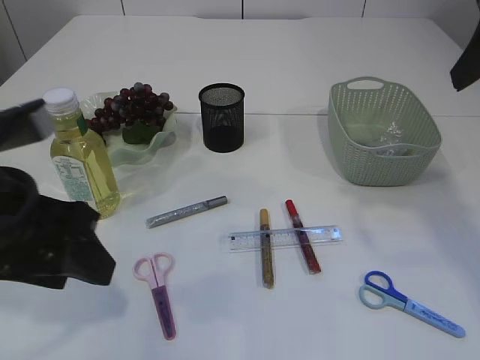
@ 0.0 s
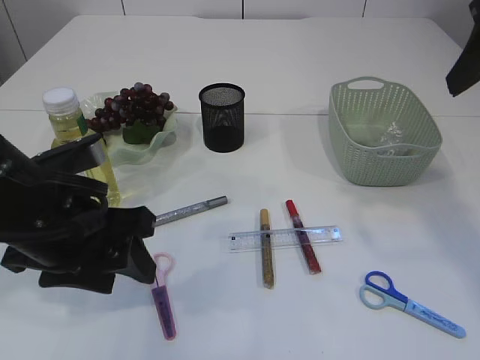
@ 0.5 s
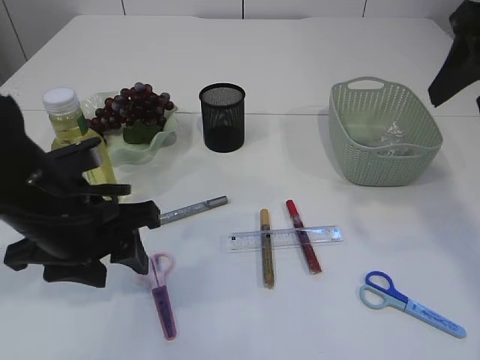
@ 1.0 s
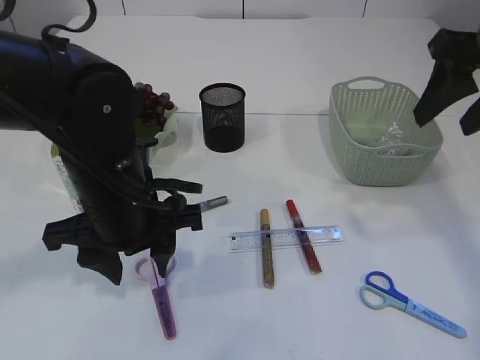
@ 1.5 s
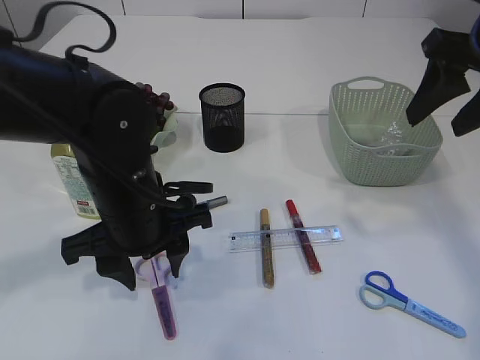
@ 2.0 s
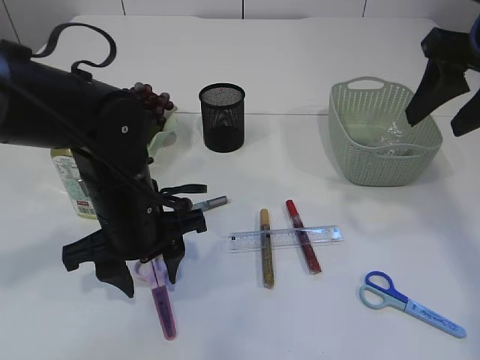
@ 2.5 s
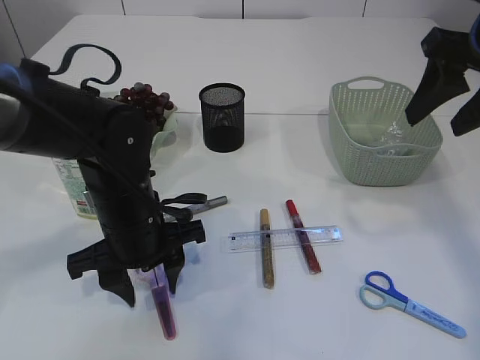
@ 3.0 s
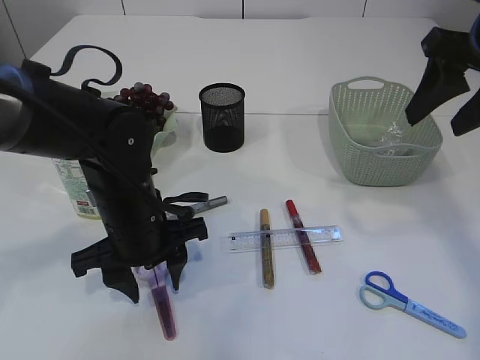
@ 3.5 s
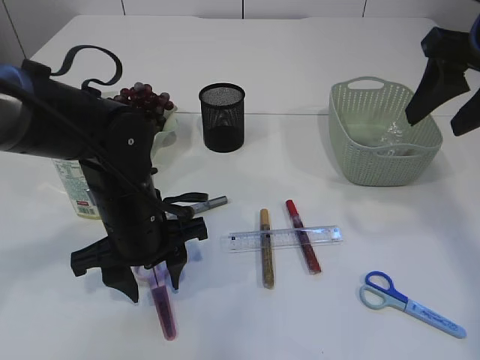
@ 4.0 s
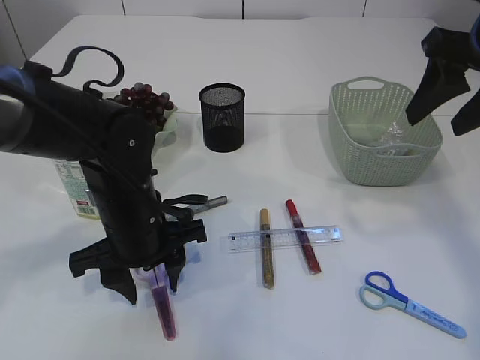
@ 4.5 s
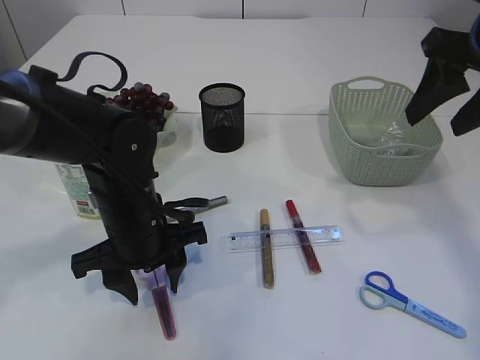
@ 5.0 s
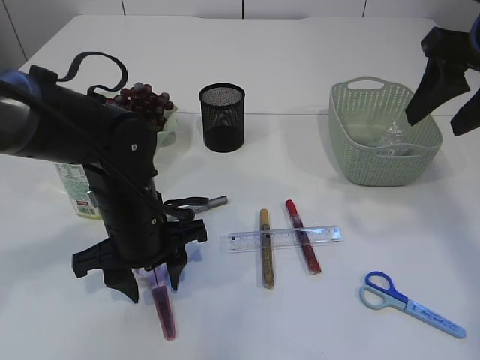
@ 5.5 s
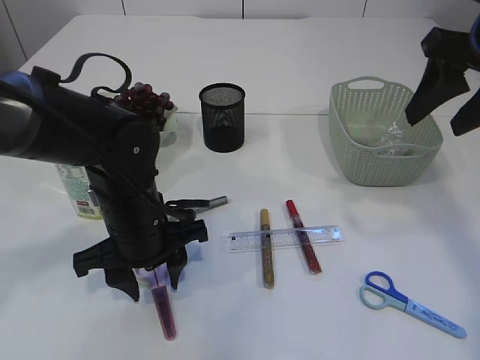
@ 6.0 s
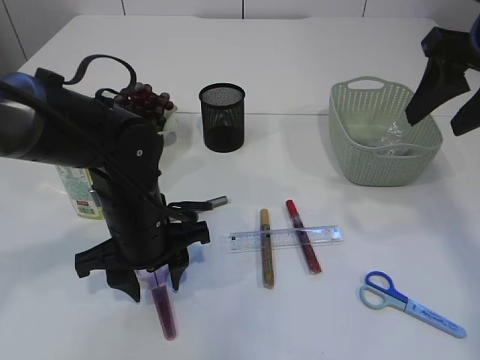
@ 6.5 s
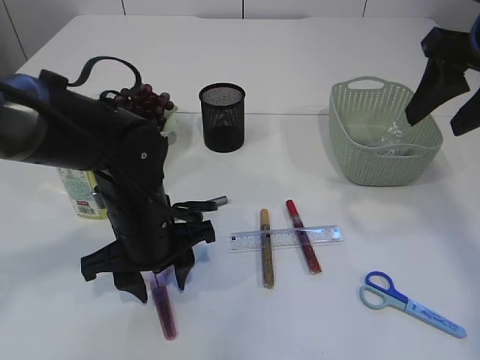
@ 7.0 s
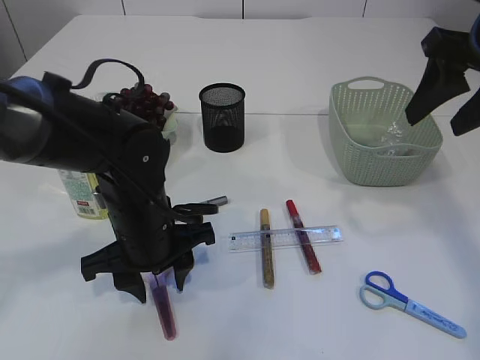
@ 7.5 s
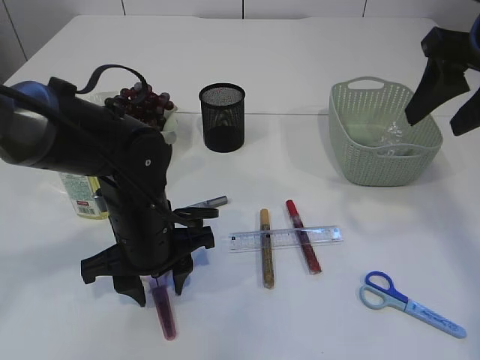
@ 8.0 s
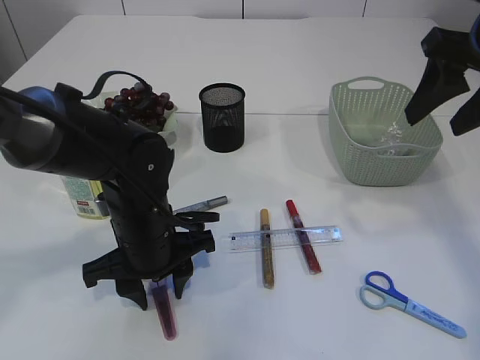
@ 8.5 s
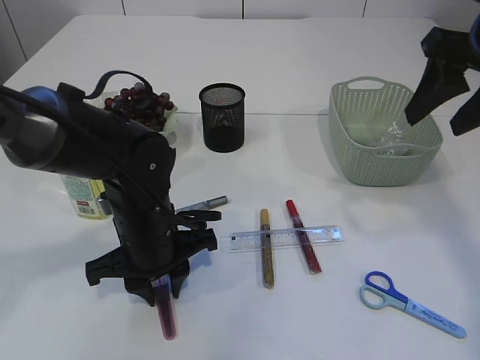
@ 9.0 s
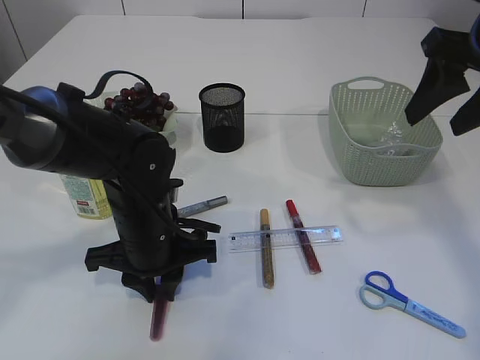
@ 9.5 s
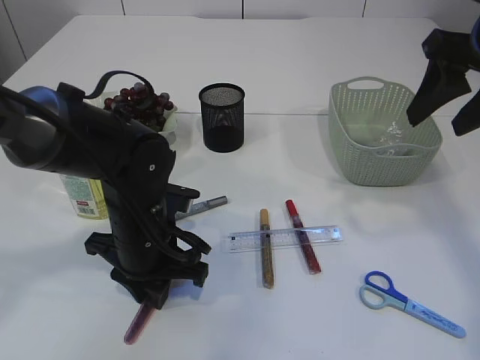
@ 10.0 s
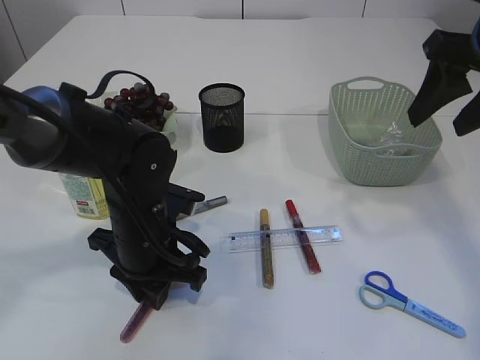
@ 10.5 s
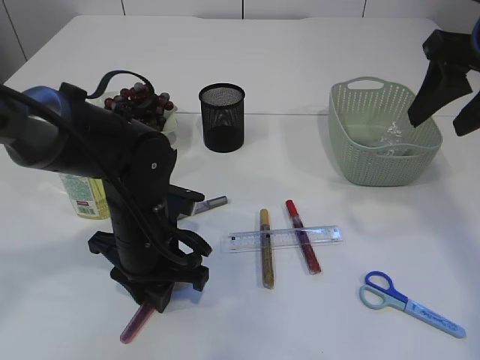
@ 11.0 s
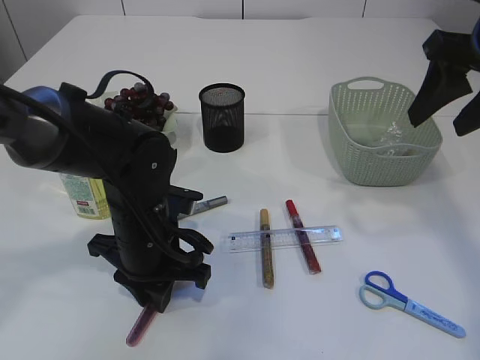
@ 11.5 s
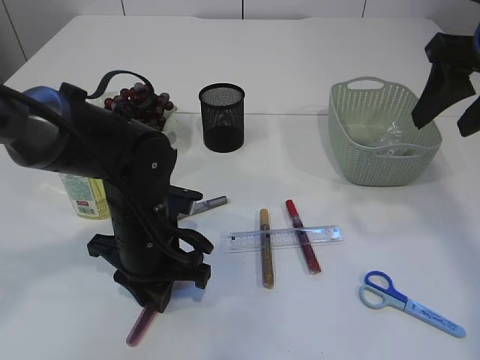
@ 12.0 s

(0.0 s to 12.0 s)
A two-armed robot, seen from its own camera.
0.0 s - 2.0 s: The left gripper heads downward, to the right and forward, covering about 15 cm, while the right gripper moves downward, roughly 5 cm.
2.0 s - 4.0 s: There are only small adjustments of the grippers.
4.0 s - 6.0 s: Both grippers stay about where they are.
6.0 s - 8.0 s: Both grippers stay about where they are.
10.0 s - 12.0 s: The grippers move only a little.

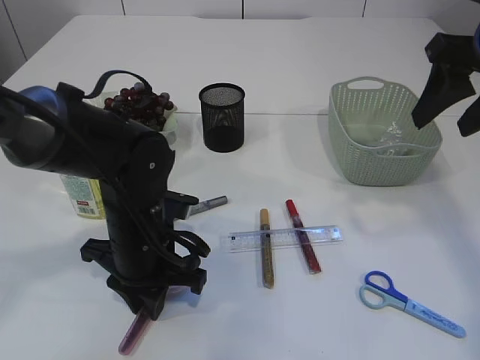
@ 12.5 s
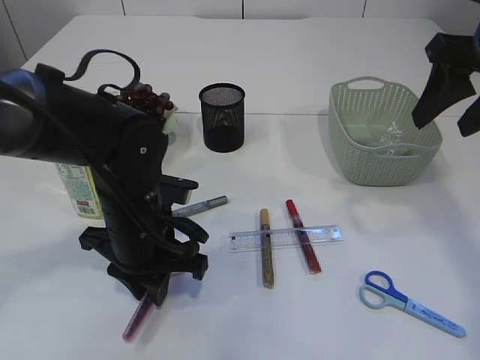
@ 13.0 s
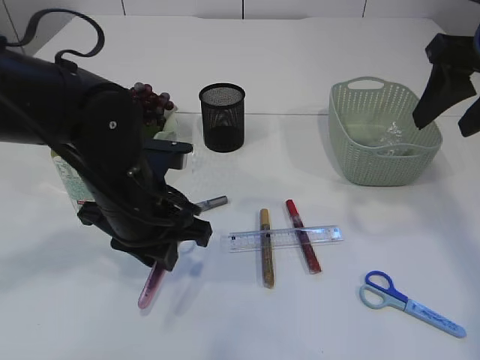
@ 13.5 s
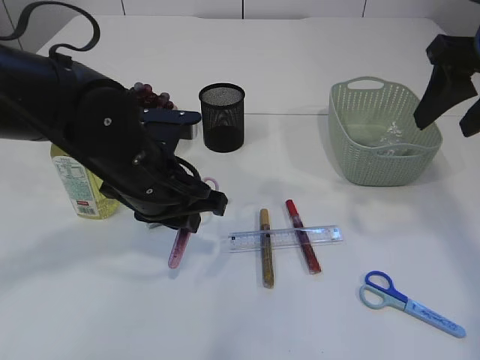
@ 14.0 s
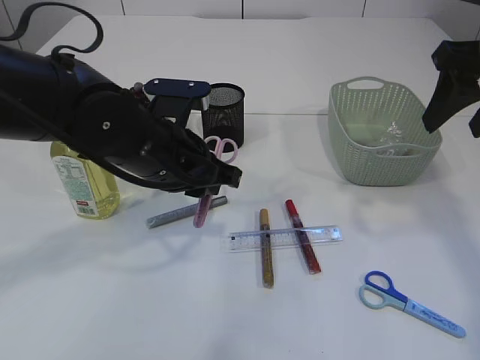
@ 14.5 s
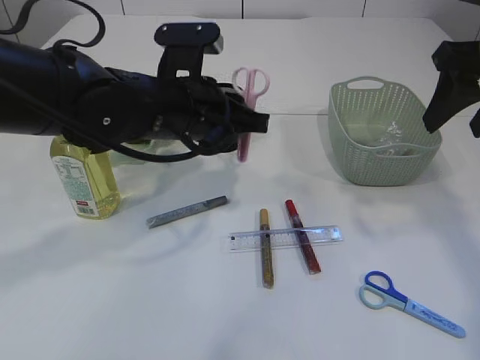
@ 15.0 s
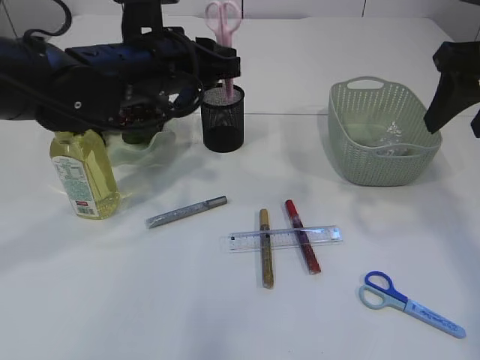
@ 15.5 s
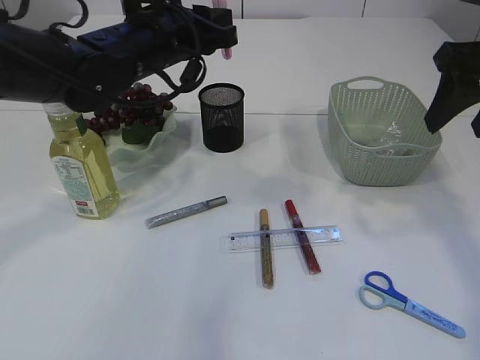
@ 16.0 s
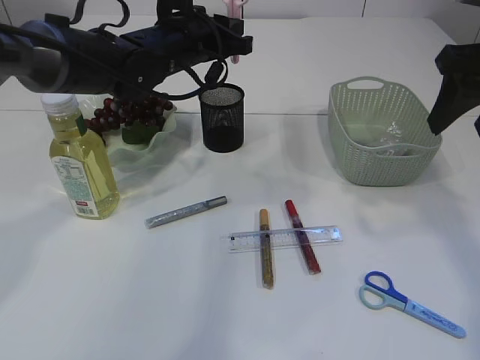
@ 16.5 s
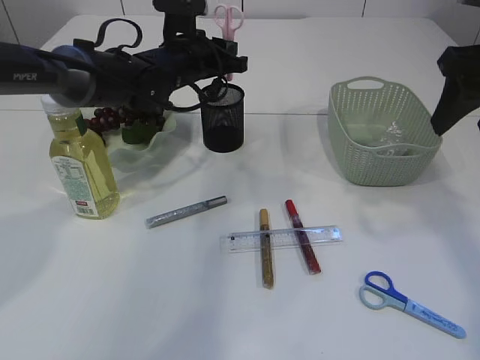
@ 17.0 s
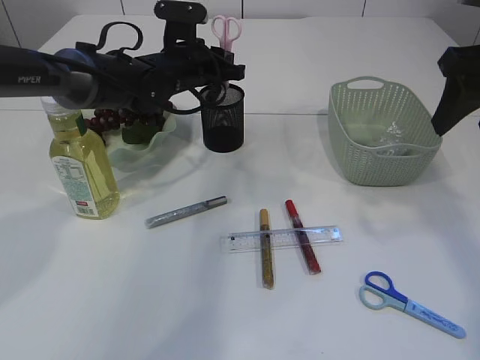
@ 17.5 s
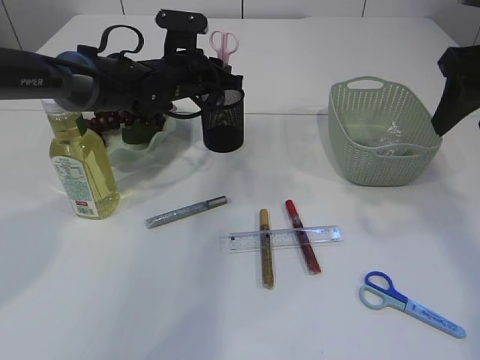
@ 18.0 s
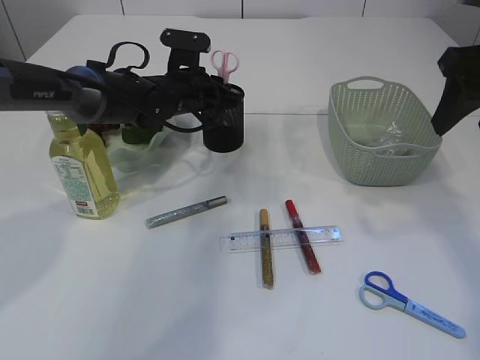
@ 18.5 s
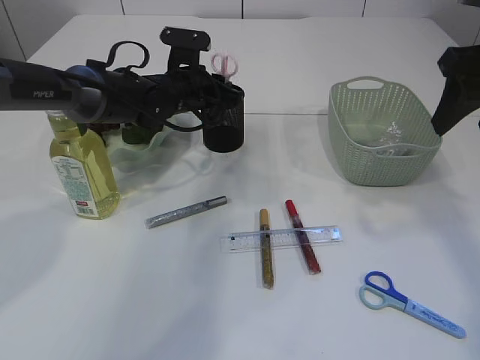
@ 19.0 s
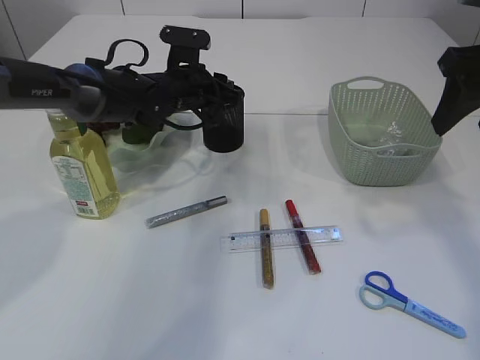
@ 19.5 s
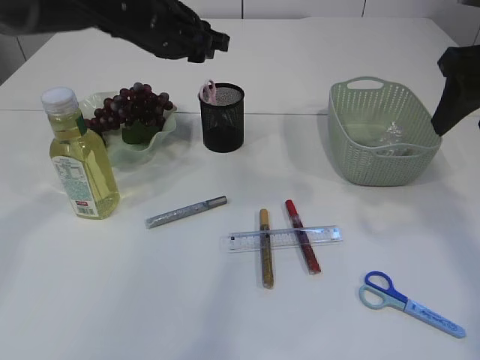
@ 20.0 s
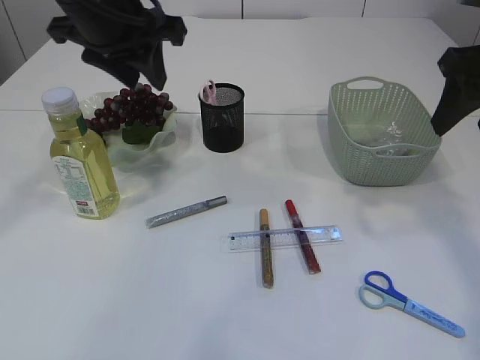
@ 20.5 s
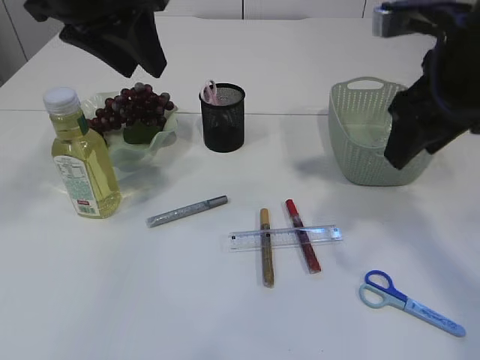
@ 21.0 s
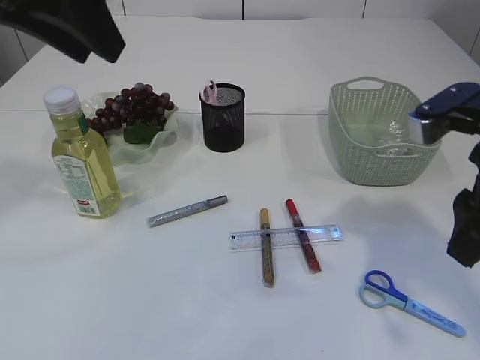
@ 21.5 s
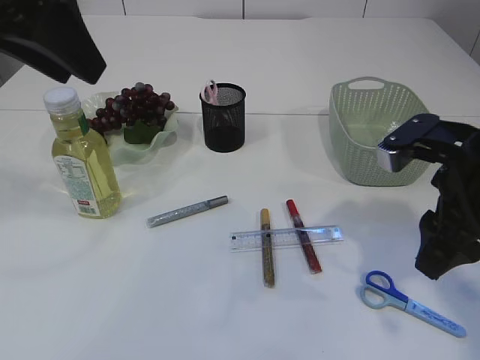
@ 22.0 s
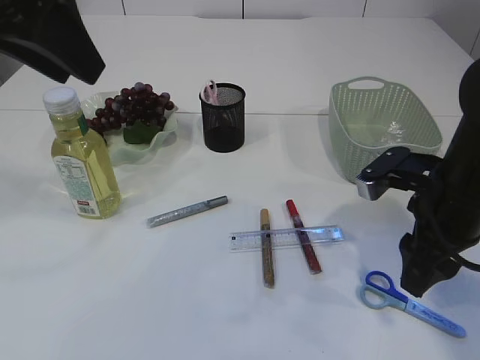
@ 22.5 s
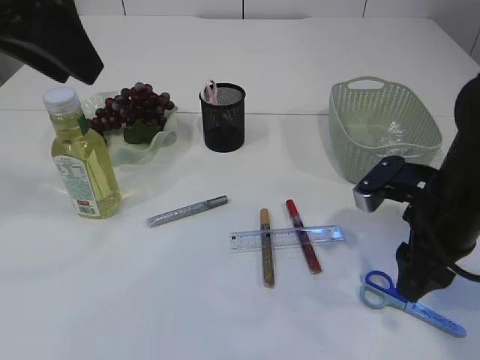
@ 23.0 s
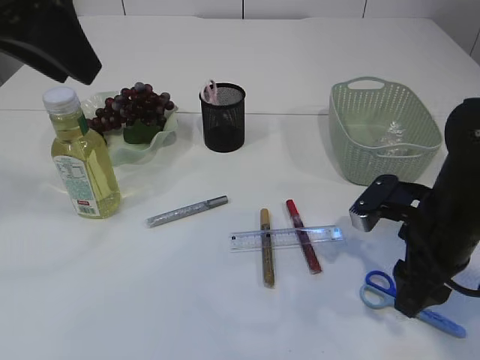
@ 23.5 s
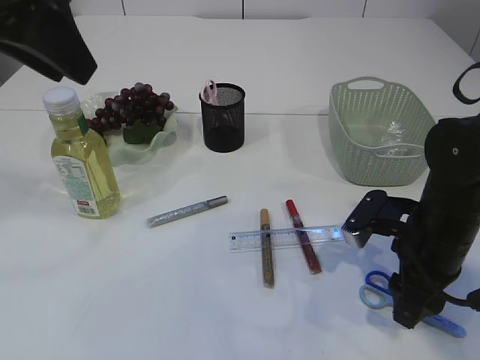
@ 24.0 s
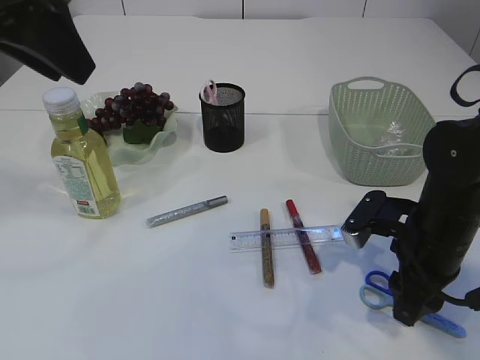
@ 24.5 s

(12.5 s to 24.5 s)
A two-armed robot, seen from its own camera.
Step, 14.0 s - 20.0 s: Place the pink scissors into the pen holder.
12.5 s - 14.5 s: The left gripper moves upward, roughly 10 cm.
14.5 s - 16.5 s: The left gripper moves forward, roughly 15 cm.
16.5 s - 18.5 s: The left gripper shifts about 10 cm downward.
18.5 s - 20.5 s: The left gripper moves upward and backward, about 20 cm.
20.5 s - 22.5 s: The left gripper travels backward and upward by approximately 15 cm; the right gripper heads downward, covering about 15 cm.
22.5 s - 24.5 s: The right gripper is displaced downward by roughly 5 cm.

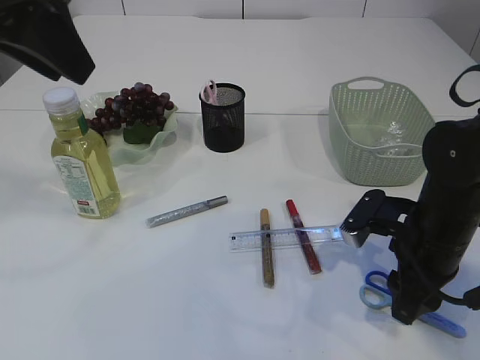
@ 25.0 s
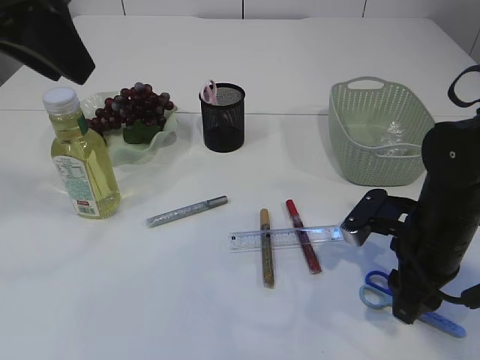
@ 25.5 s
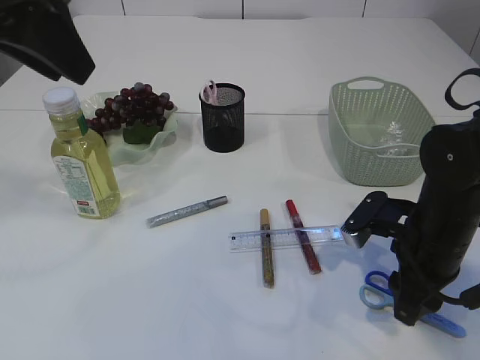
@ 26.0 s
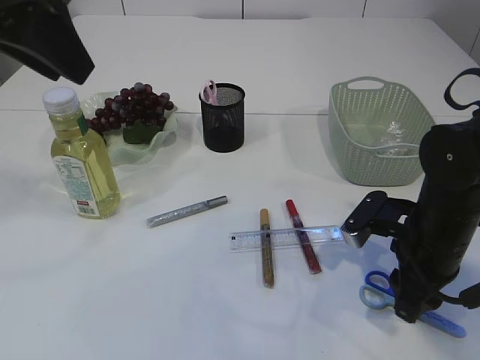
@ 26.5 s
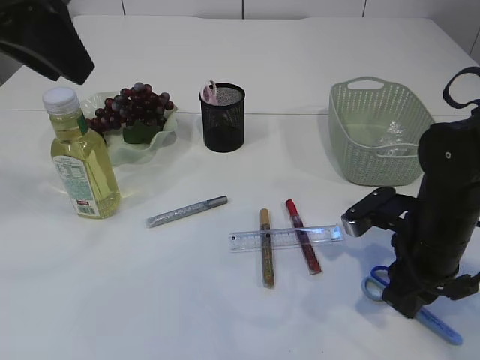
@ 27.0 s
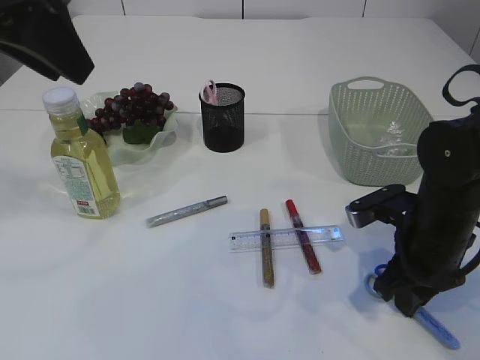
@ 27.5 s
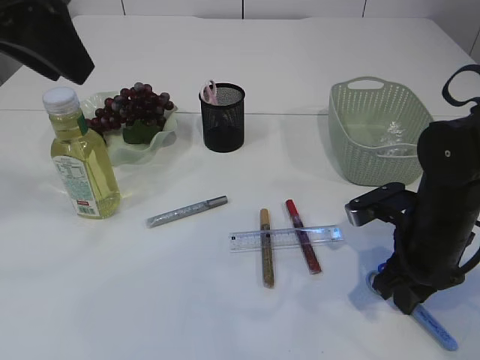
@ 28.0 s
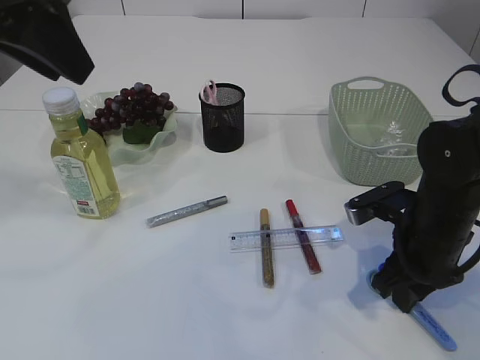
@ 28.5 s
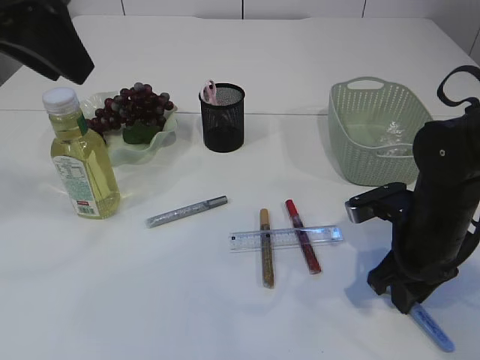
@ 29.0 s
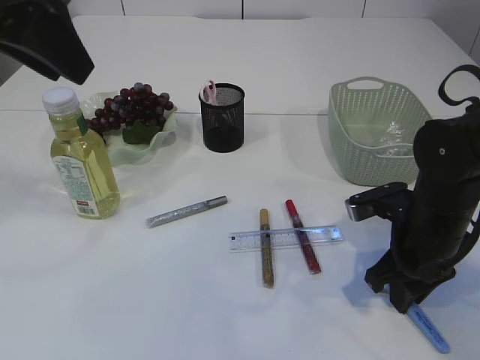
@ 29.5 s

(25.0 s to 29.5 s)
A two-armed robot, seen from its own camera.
25.0 s - 27.0 s: There are only small adjustments of the grippers.
27.0 s - 29.5 s: The grippers stay close to where they were, moving slightly.
